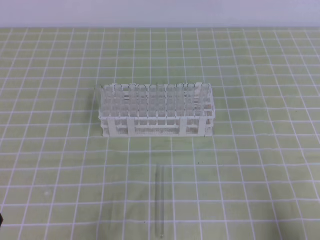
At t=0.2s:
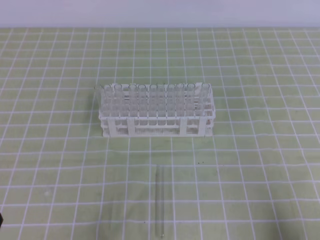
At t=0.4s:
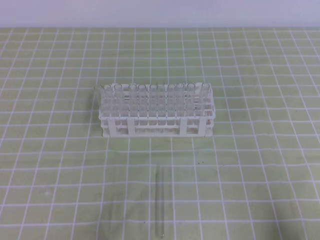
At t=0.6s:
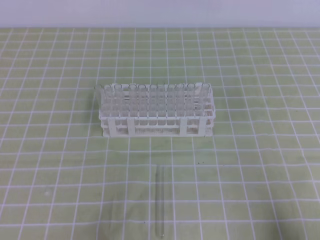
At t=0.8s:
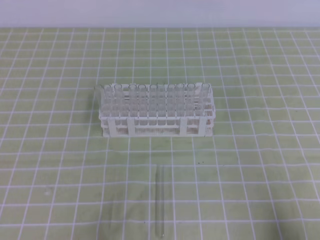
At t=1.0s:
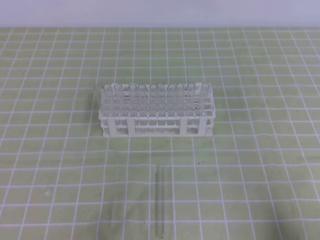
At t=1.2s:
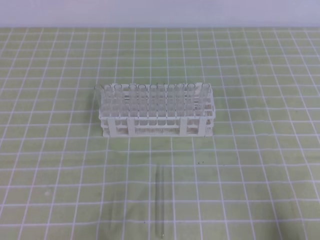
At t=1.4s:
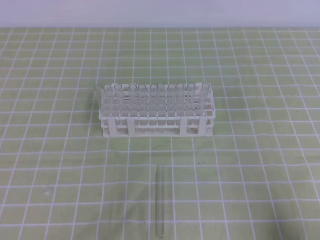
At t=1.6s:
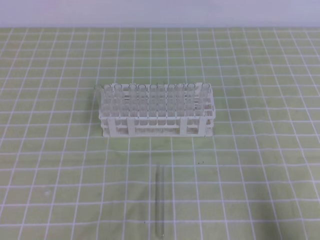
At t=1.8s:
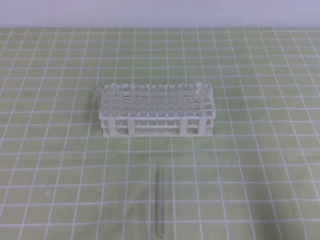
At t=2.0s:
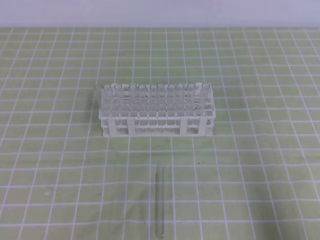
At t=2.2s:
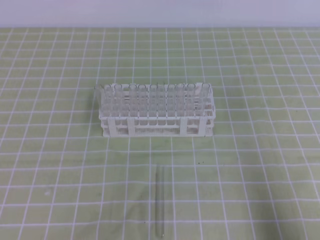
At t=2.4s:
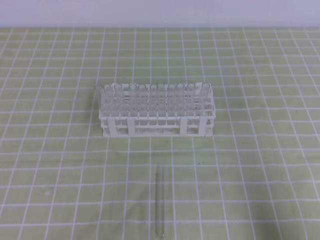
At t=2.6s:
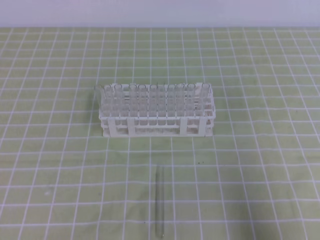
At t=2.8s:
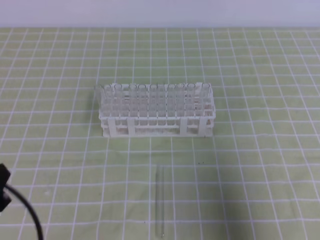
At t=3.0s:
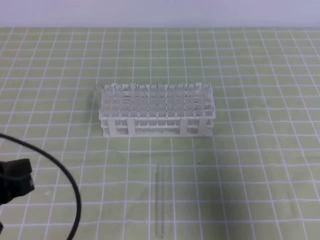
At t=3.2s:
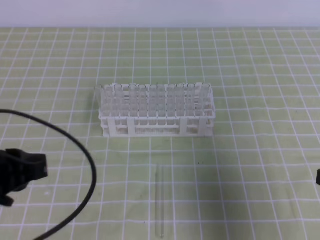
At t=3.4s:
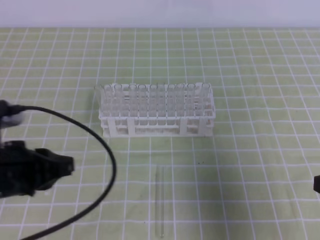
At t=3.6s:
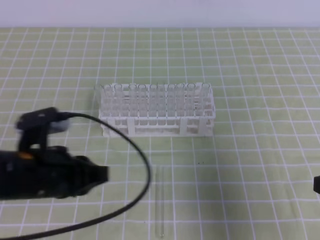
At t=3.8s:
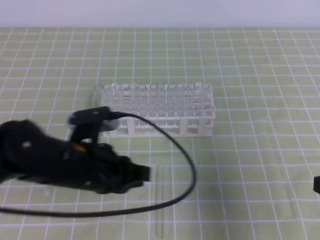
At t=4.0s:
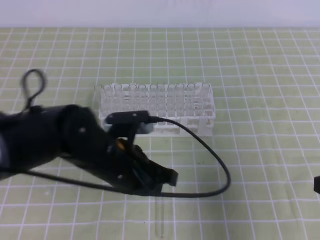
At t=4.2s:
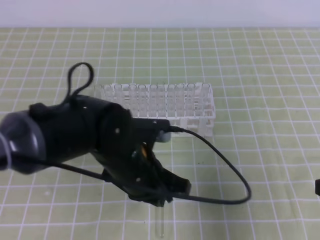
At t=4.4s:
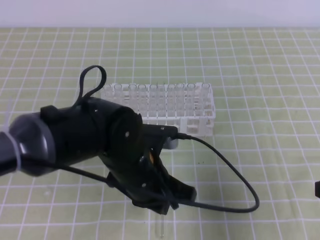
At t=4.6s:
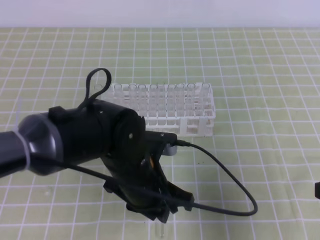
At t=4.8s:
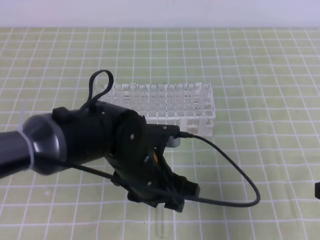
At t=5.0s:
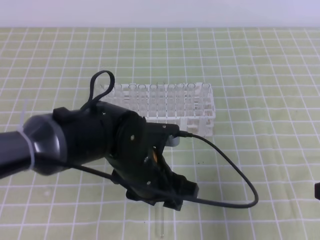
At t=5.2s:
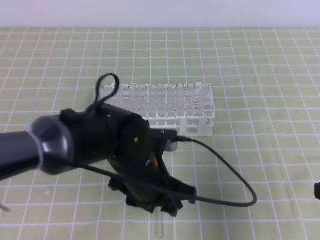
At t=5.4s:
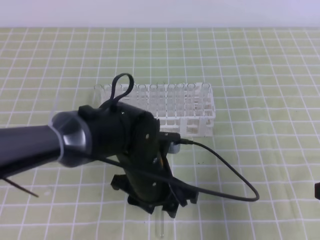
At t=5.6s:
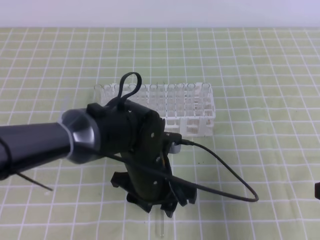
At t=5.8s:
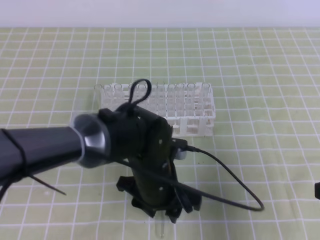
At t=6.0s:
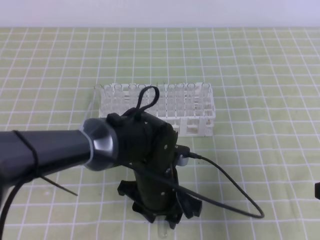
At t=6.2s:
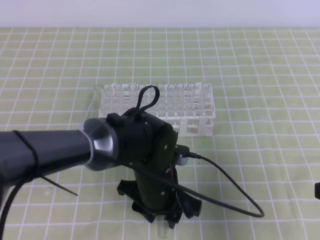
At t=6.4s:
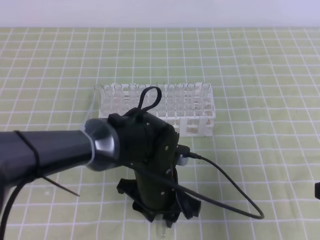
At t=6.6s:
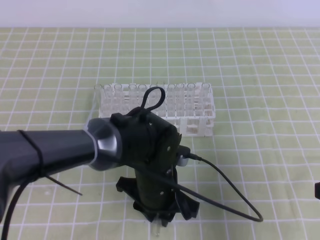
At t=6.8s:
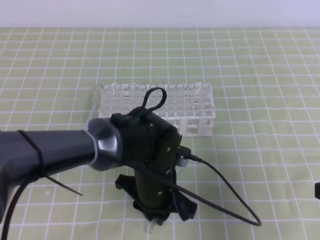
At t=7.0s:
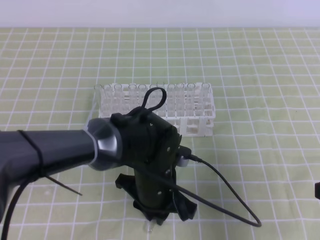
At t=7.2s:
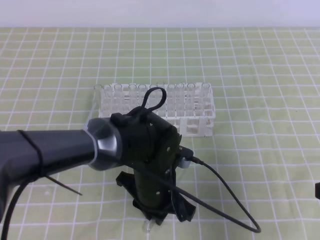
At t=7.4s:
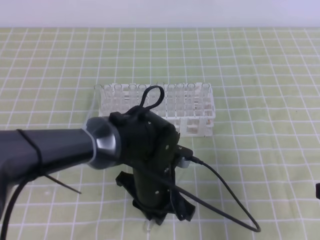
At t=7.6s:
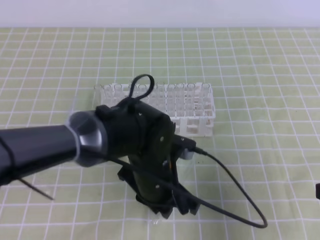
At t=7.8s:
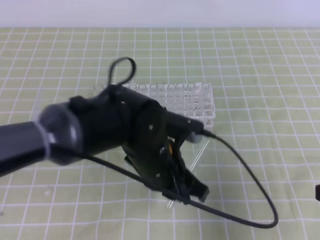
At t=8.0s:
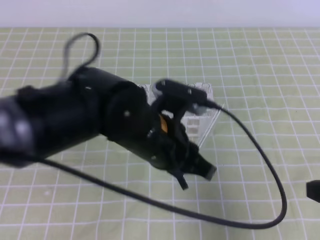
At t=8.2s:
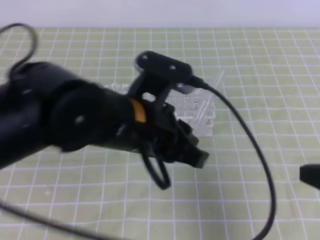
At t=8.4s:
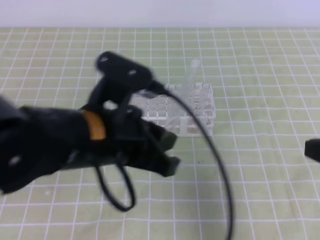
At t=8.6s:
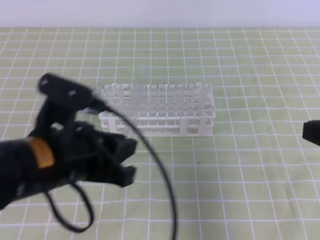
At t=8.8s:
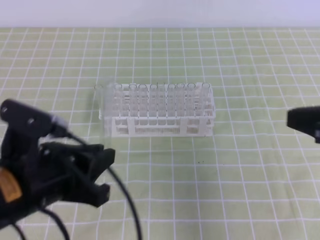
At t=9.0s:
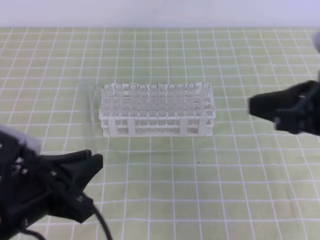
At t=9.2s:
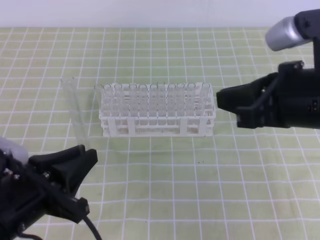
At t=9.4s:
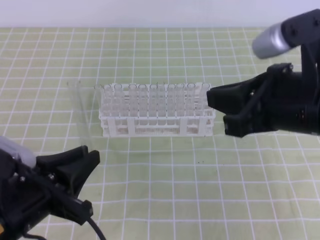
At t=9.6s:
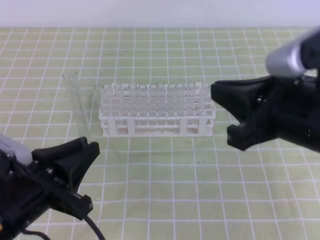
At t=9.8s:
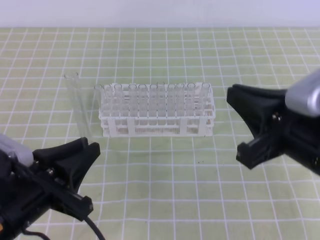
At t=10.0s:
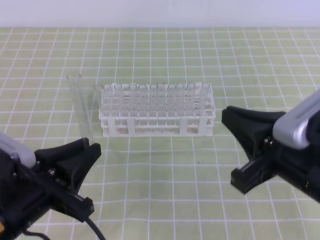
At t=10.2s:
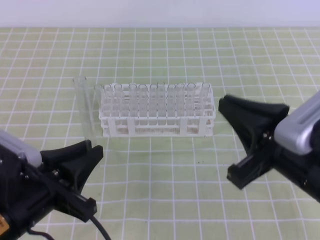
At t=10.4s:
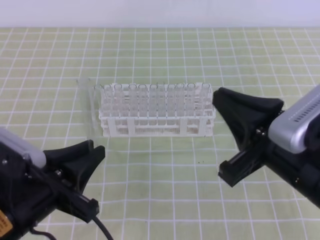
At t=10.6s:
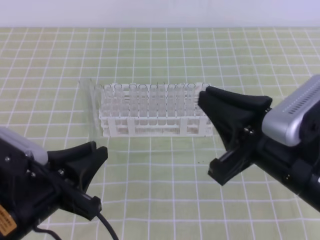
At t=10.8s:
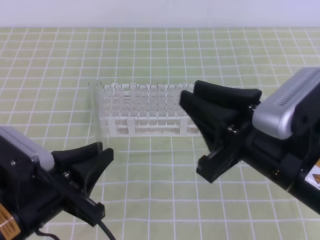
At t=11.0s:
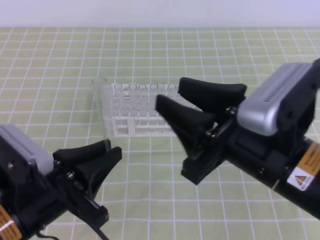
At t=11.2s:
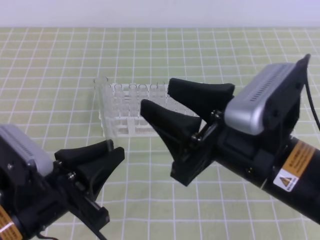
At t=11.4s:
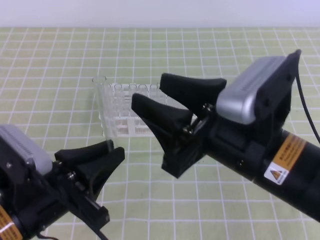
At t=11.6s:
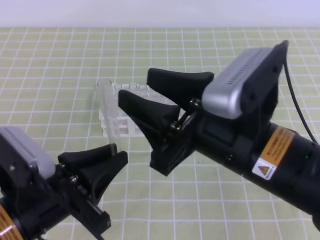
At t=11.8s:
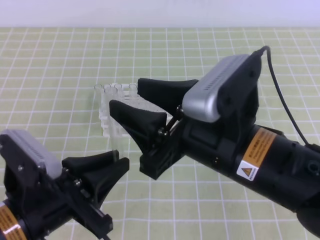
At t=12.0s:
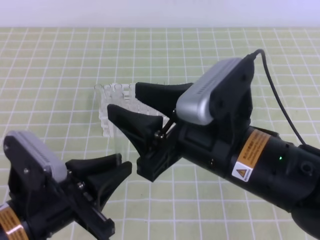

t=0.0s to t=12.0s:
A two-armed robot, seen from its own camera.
t=1.6s to t=3.0s: The left gripper shifts about 10 cm forward and upward. Meanwhile the right gripper travels upward and forward by approximately 10 cm.
t=3.0s to t=4.4s: The left gripper travels to the right and forward by about 20 cm.
t=4.4s to t=6.0s: The left gripper shifts by some 5 cm, and opens.
t=6.0s to t=7.6s: The left gripper closes its fingers.
t=7.6s to t=9.0s: The right gripper heads upward, to the left and forward, covering roughly 10 cm, while the left gripper travels to the left, backward and upward by roughly 20 cm.
t=9.0s to t=10.4s: The right gripper heads to the left, covering some 5 cm.
t=10.4s to t=12.0s: The right gripper heads to the left, covering roughly 10 cm, and opens its fingers.

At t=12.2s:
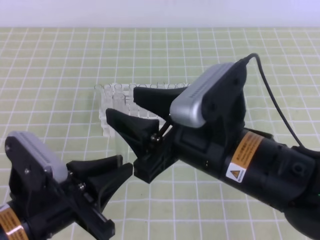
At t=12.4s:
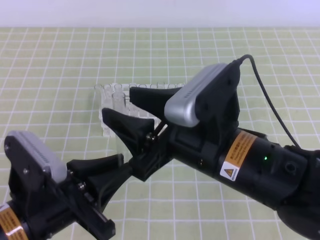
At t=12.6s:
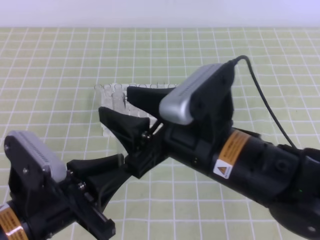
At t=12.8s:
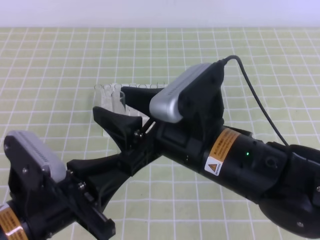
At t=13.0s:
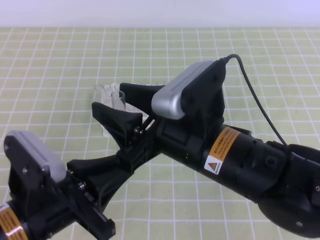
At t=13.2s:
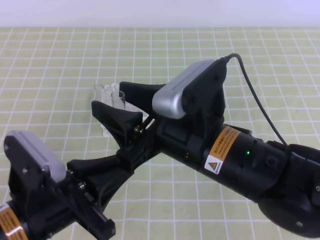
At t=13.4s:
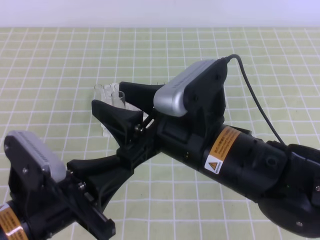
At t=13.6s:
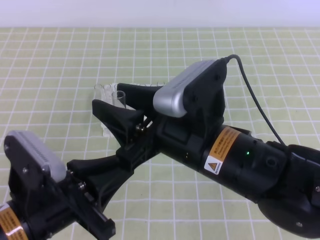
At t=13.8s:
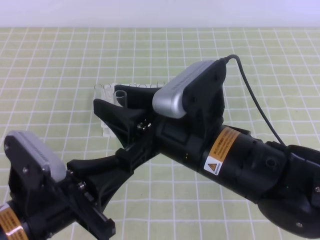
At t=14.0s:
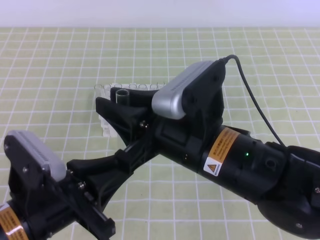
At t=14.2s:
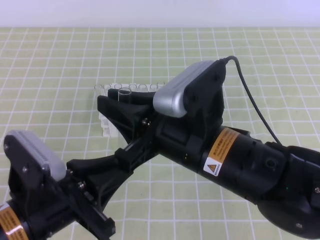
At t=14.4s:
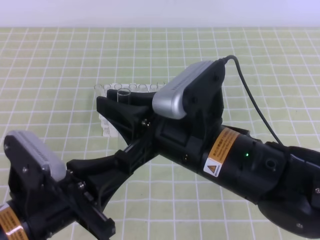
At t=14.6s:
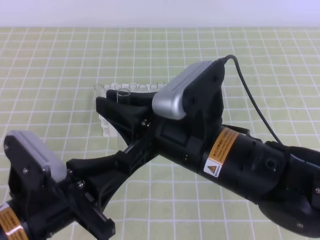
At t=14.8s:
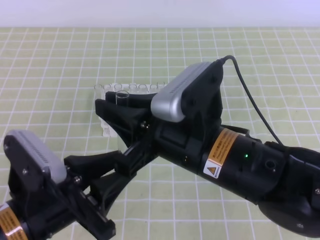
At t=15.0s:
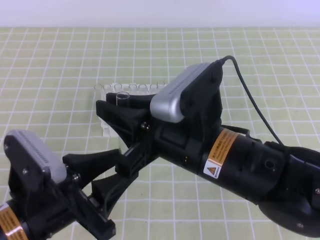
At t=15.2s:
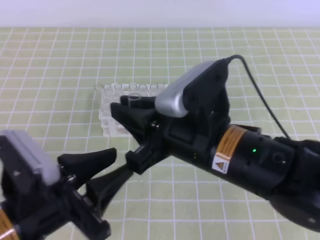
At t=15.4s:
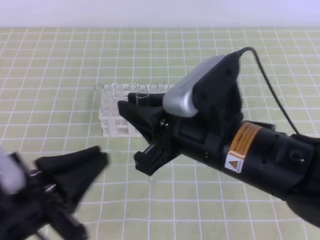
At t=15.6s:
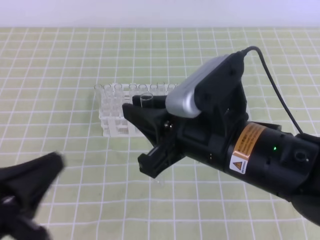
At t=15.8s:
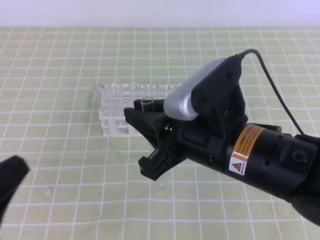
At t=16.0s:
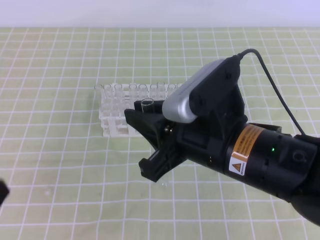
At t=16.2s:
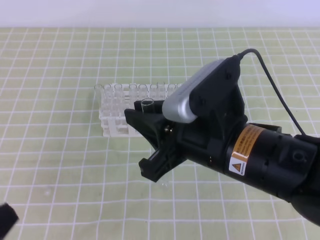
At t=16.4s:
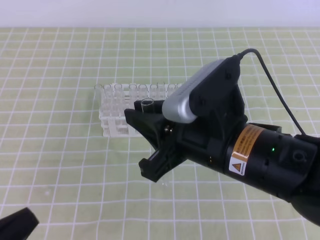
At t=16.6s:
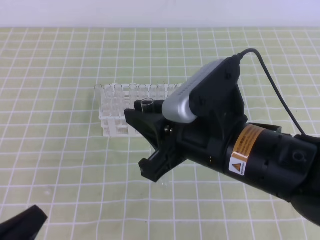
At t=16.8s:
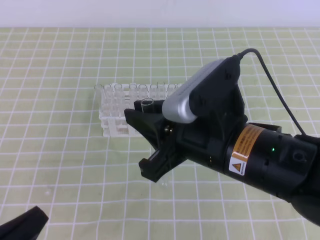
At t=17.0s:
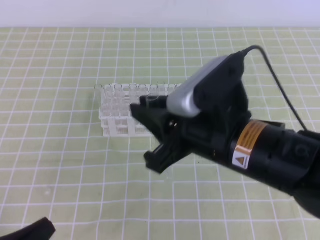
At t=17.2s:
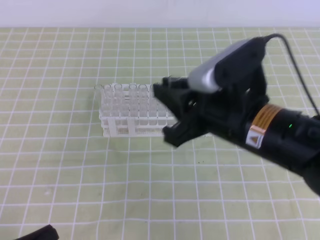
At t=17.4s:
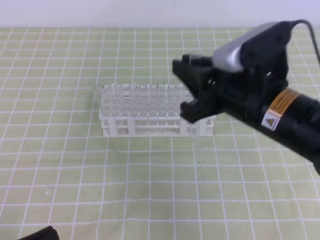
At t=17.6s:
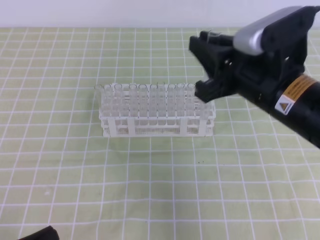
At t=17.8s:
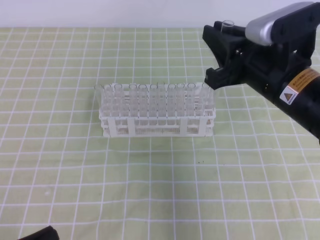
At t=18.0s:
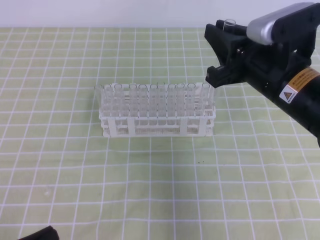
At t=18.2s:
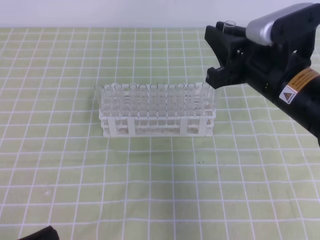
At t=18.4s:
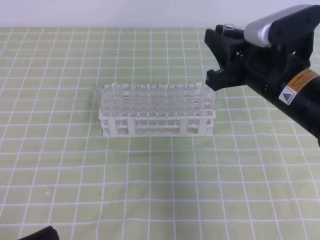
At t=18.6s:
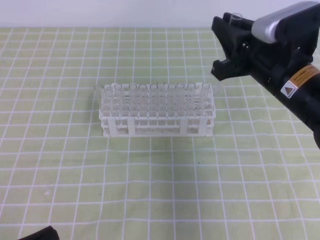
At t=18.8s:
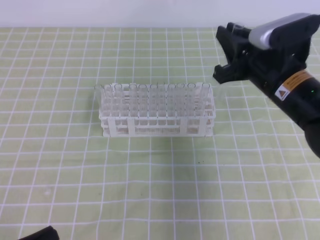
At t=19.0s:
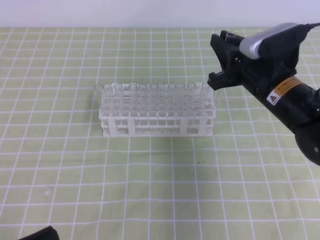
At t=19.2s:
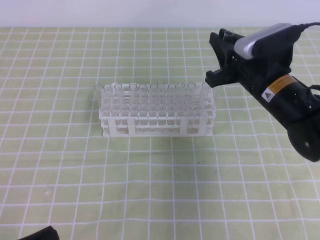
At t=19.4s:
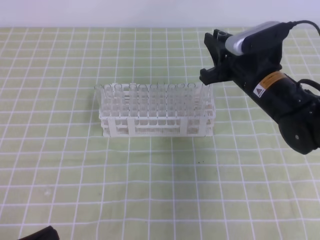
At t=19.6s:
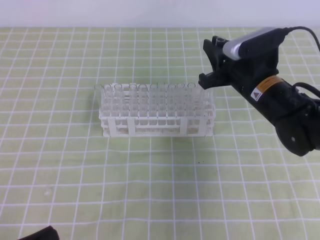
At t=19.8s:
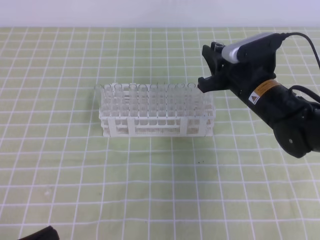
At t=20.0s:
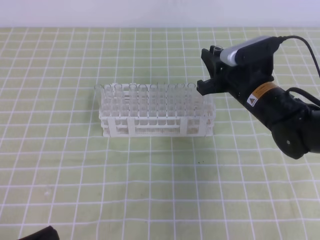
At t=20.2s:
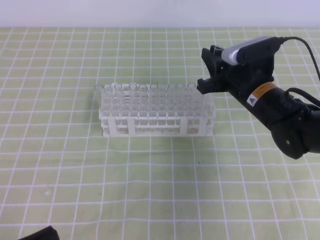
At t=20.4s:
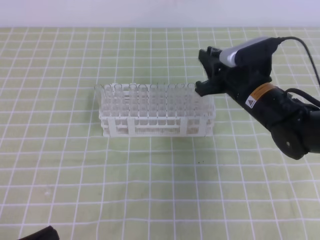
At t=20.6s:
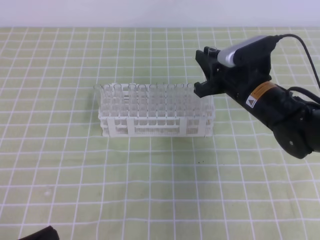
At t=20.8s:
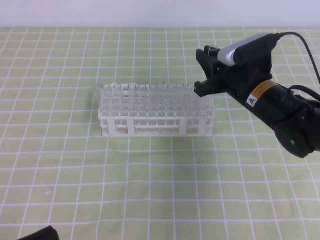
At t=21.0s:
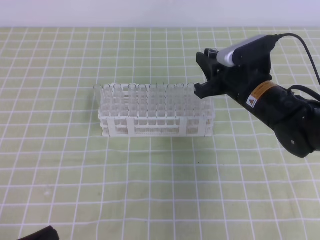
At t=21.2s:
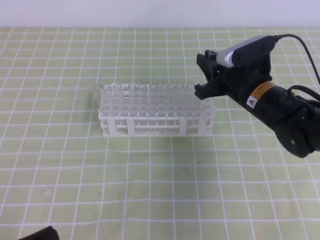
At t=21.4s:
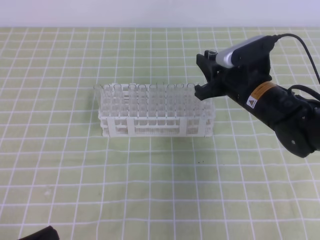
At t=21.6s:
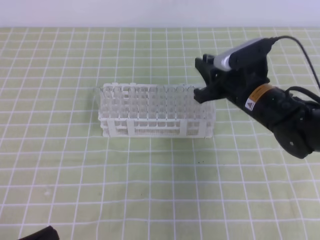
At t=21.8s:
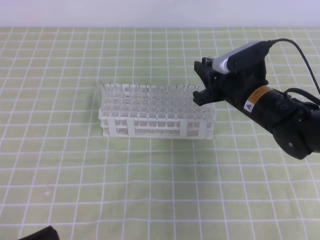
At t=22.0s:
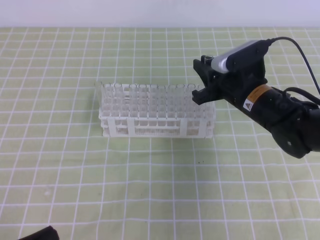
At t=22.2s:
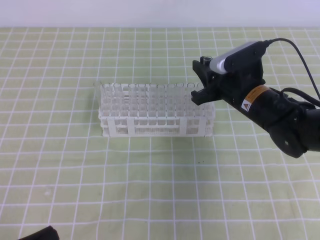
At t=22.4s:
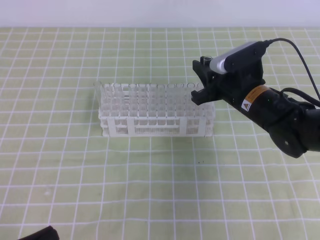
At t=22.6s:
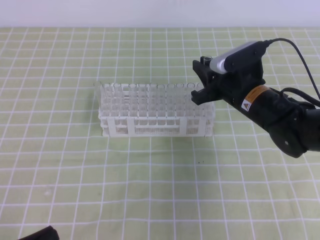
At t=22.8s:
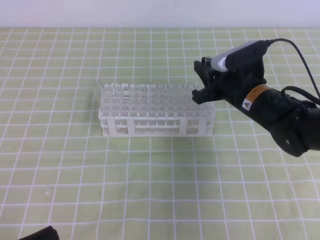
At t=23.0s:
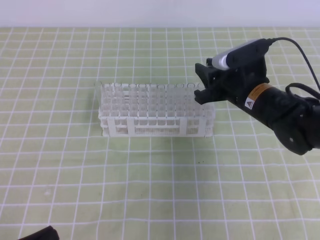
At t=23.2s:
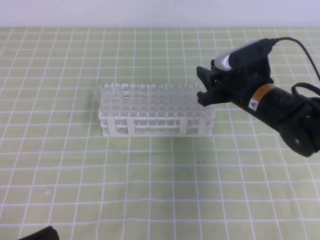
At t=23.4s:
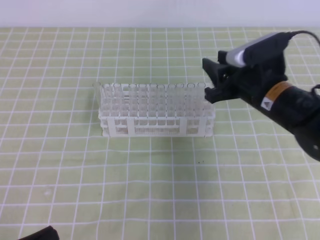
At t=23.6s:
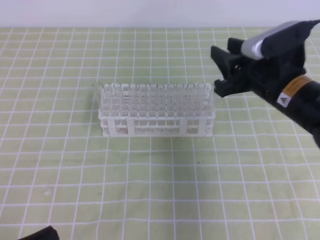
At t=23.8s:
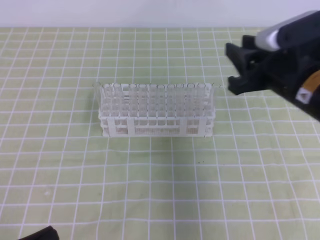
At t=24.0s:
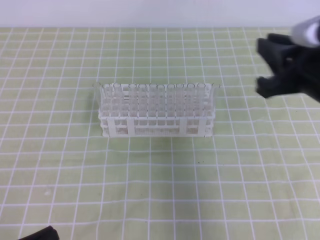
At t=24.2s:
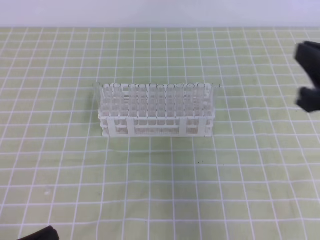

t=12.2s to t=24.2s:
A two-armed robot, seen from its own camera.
t=12.2s to t=13.8s: The grippers stay close to where they were, moving slightly.
t=13.8s to t=15.2s: The left gripper opens its fingers; the right gripper closes its fingers.
t=15.2s to t=16.6s: The left gripper goes approximately 10 cm to the left and backward, and closes up.
t=16.6s to t=18.2s: The right gripper shifts some 10 cm forward and to the right.
t=18.2s to t=19.8s: The right gripper shifts some 10 cm downward and forward.
t=19.8s to t=22.6s: The grippers stay close to where they were, moving slightly.
t=22.6s to t=24.2s: The right gripper is displaced backward, upward and to the right by approximately 25 cm, and opens and closes again.
